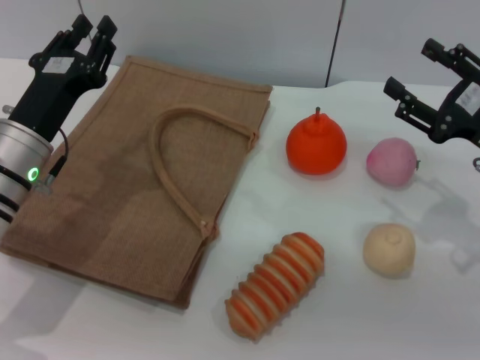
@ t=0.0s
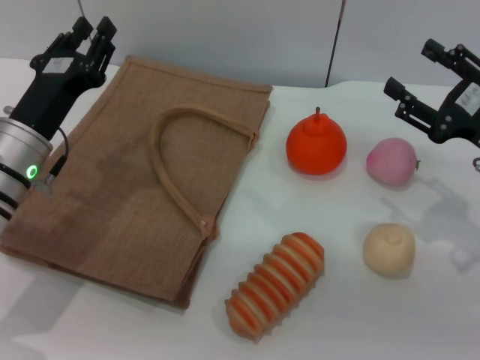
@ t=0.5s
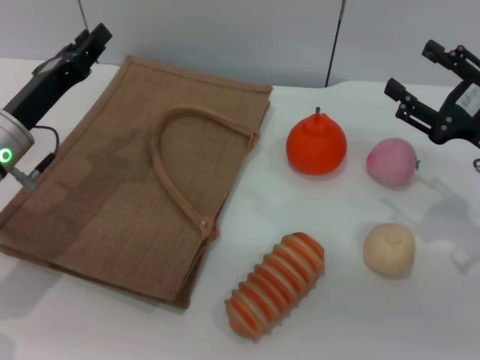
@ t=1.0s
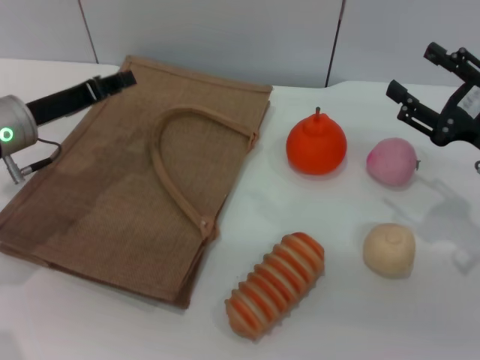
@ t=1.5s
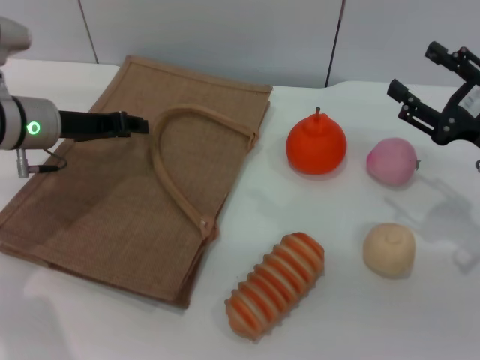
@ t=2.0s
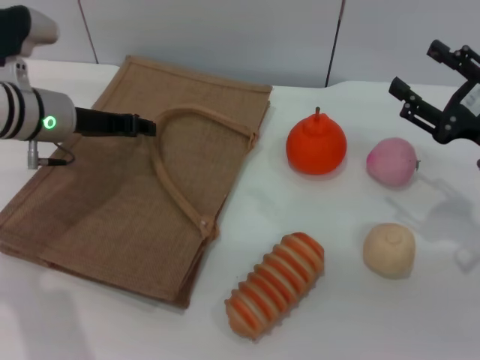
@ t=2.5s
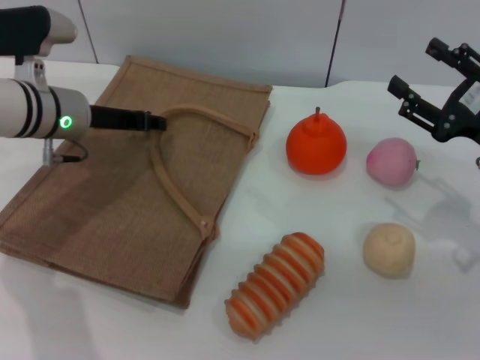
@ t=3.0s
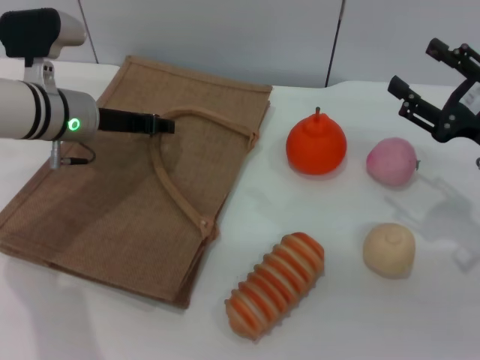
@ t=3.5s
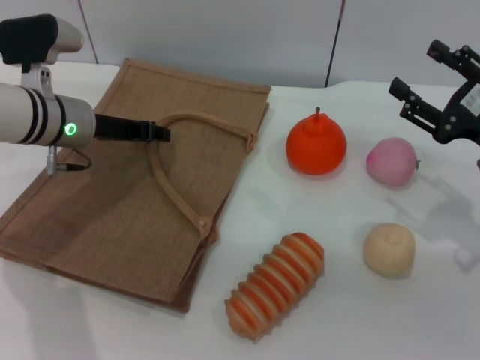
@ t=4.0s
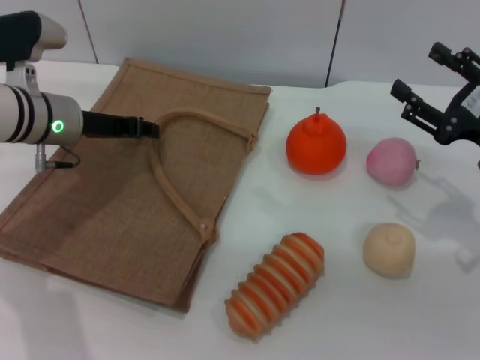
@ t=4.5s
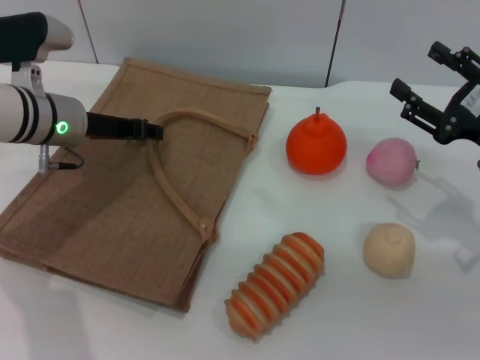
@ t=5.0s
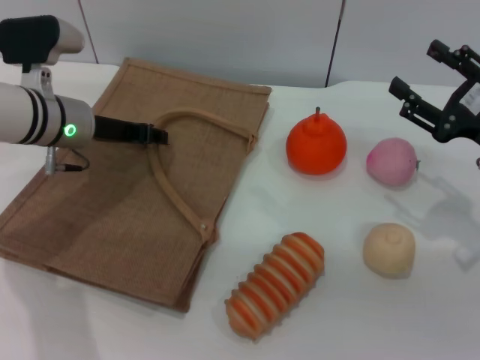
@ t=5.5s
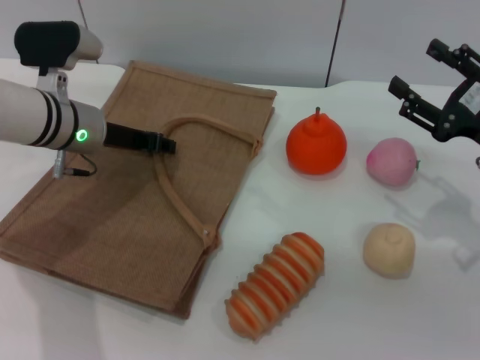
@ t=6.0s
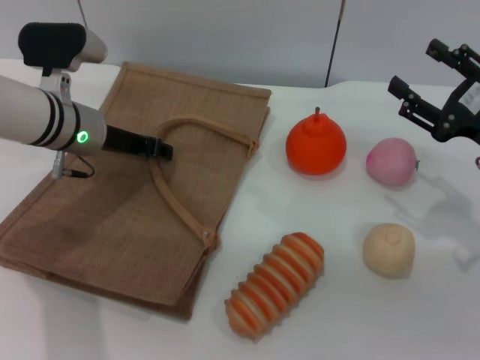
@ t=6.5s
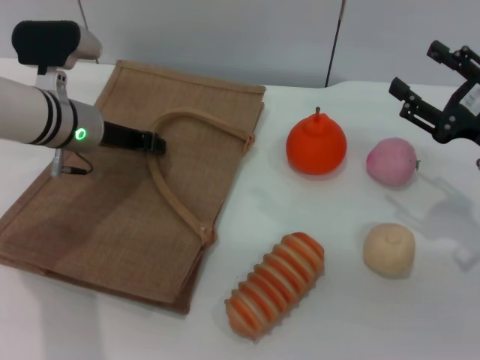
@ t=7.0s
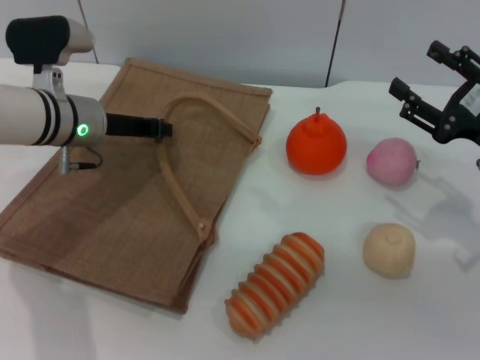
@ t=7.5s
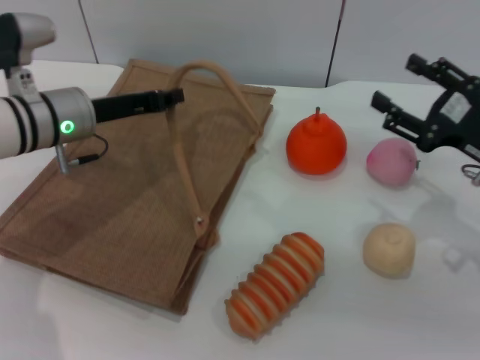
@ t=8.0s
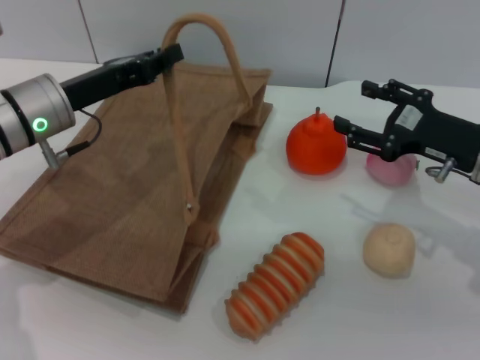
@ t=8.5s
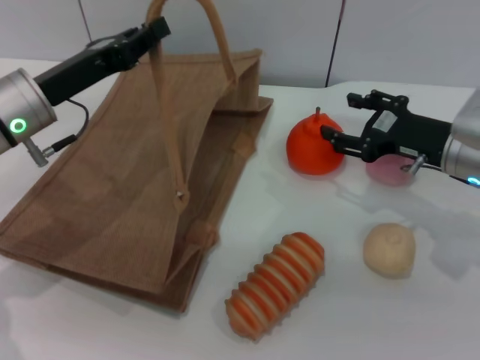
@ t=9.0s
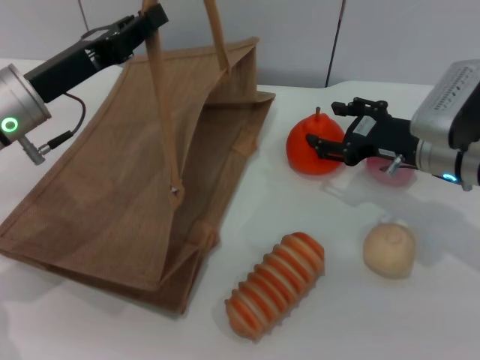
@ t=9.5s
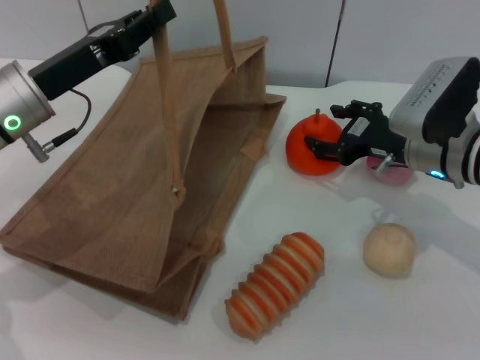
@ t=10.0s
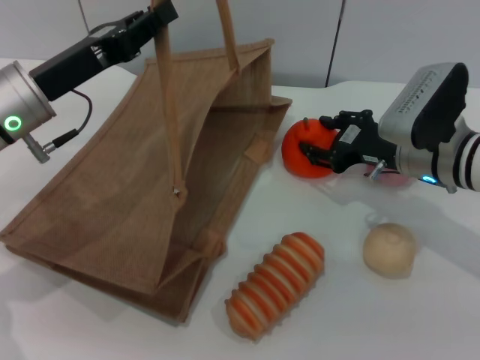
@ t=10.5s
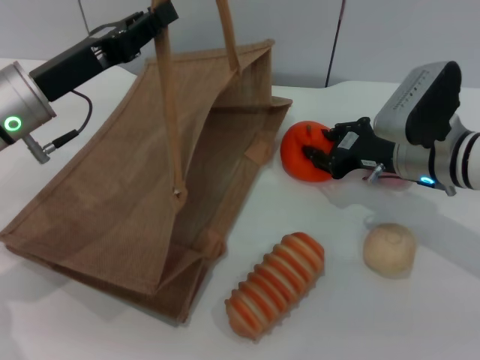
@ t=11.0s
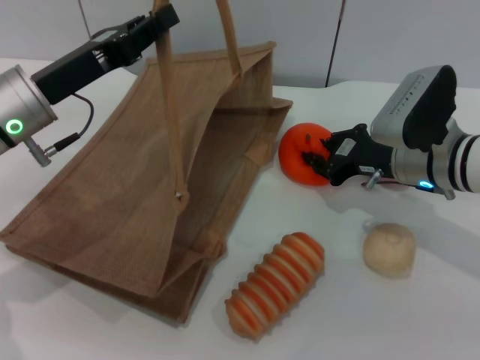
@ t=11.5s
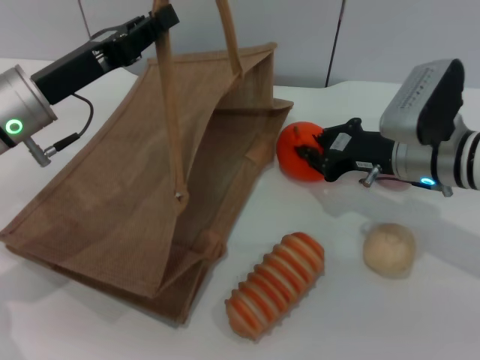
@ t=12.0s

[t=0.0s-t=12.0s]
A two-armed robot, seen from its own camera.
Task of the whole recording: pick up the orange and peach from the table and place it in the brown handbag.
Step, t=0.0s to t=7.5s: Lift the woven bag with the left gripper to open it.
t=0.0s to t=2.0s: The left gripper goes some 10 cm forward.
t=2.0s to t=6.0s: The grippers move only a little.
t=6.0s to t=8.0s: The left gripper closes.
t=8.0s to t=10.0s: The right gripper heads to the left and forward, covering about 10 cm. The left gripper moves some 5 cm.
t=10.0s to t=12.0s: The right gripper closes up.

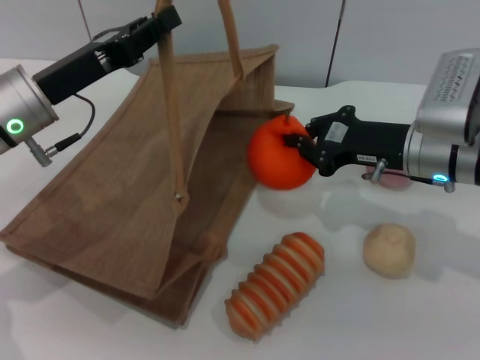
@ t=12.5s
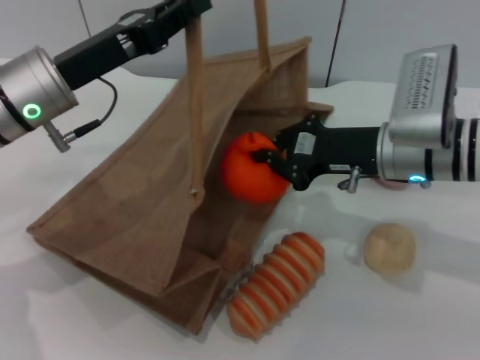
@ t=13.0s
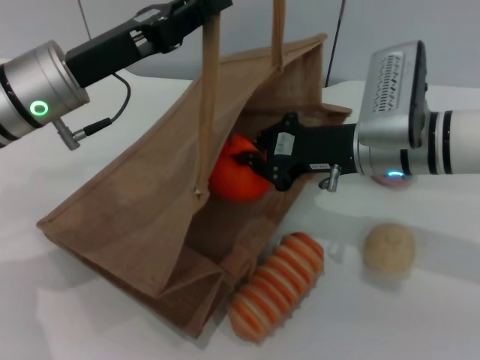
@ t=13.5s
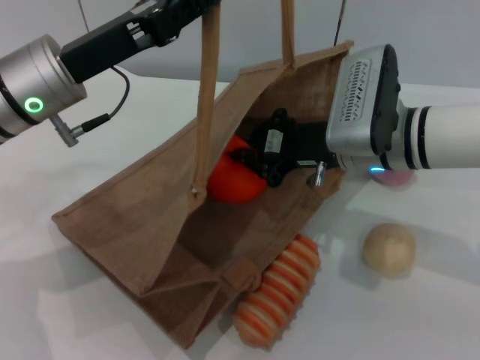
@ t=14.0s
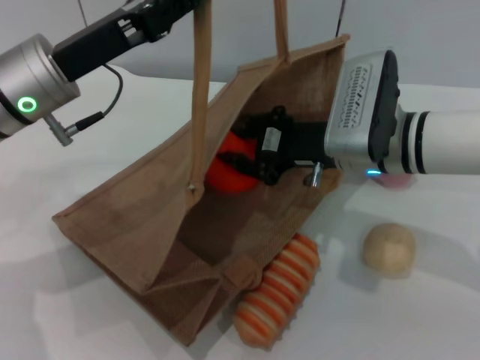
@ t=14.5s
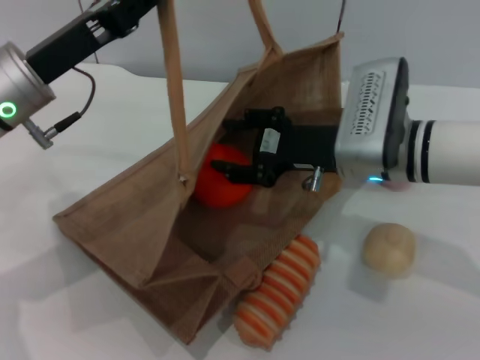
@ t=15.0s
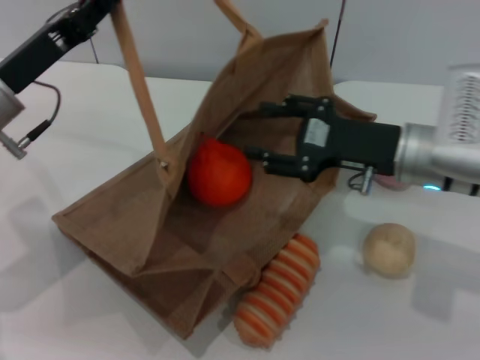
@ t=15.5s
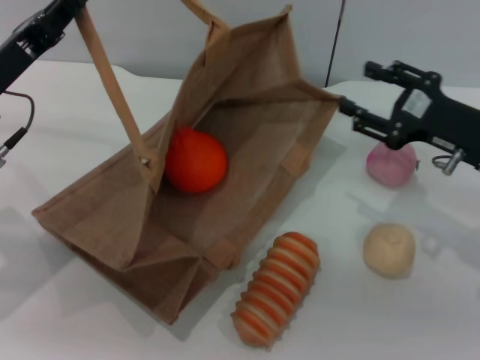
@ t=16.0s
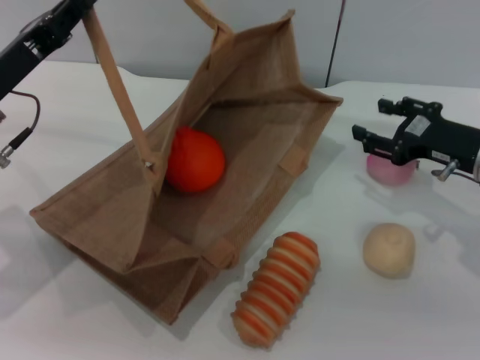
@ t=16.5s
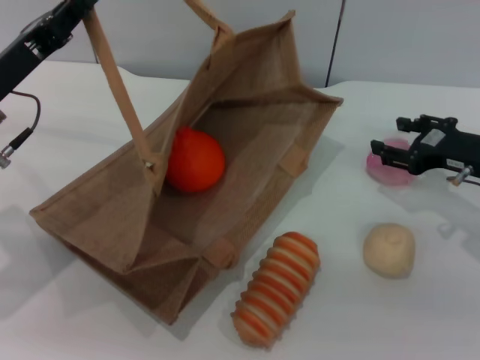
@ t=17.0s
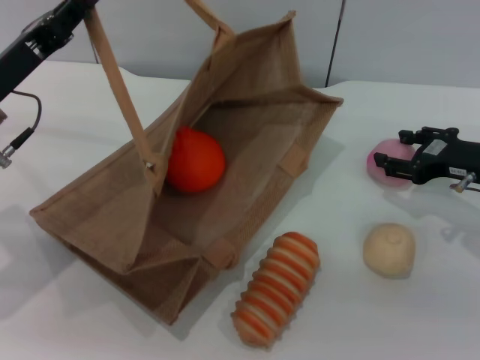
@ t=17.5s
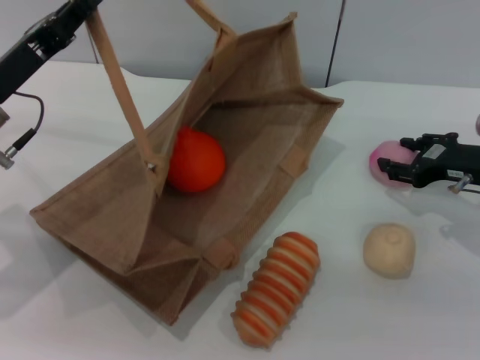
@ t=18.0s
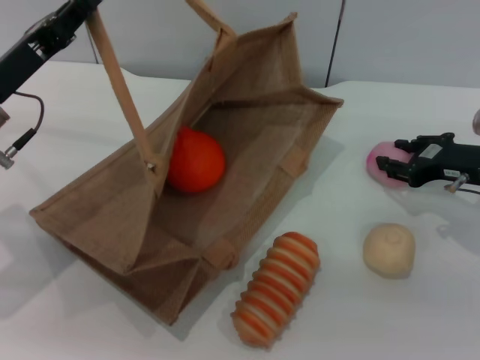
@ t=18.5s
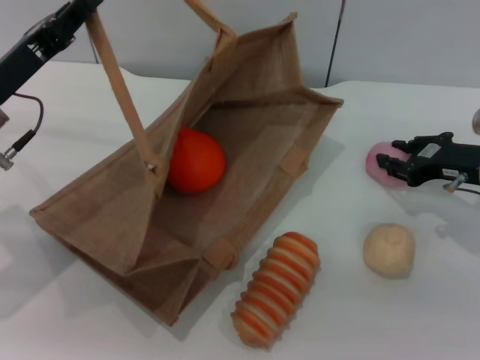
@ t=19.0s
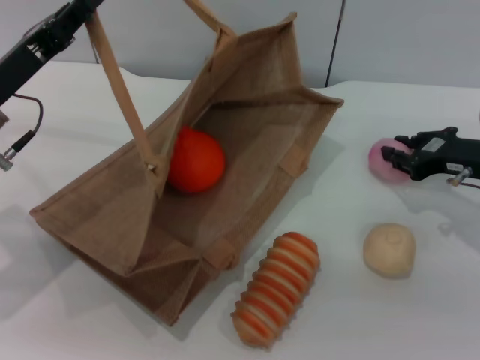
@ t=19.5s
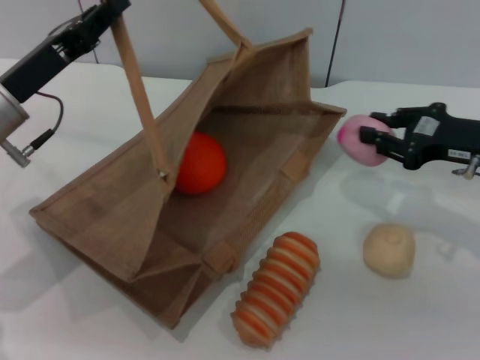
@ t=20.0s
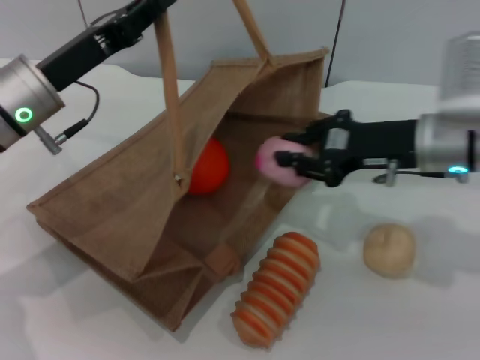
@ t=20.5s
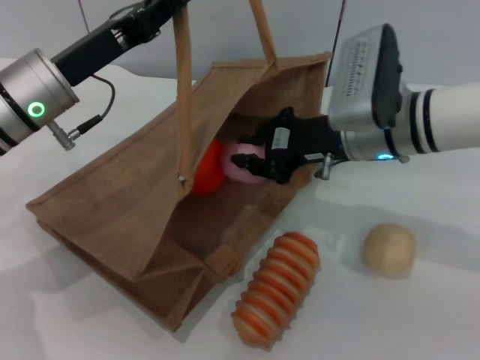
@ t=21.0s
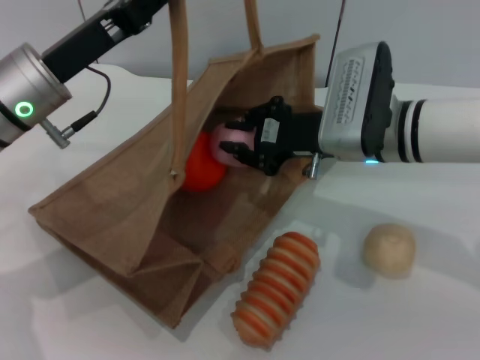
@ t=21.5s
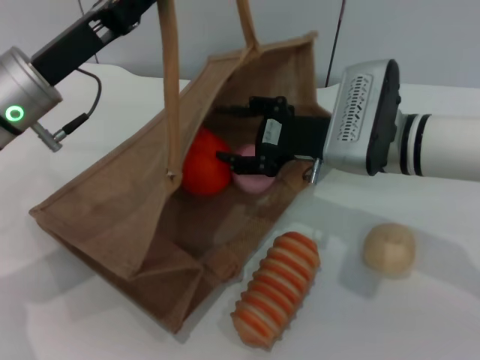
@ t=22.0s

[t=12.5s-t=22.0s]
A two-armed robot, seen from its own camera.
Task of the whole recording: pick up the orange and peach from the table and place it in the brown handbag.
Step, t=13.0s to t=15.5s: Place the orange into the woven bag with the right gripper.
Step, t=16.0s to t=20.0s: Pick up the peach with the right gripper.
t=12.5s to t=14.5s: The right gripper heads to the left, covering approximately 5 cm.
t=14.5s to t=16.5s: The left gripper moves to the left, some 5 cm, while the right gripper moves to the right, roughly 15 cm, and opens its fingers.
t=16.5s to t=18.0s: The grippers stay close to where they were, moving slightly.
t=18.0s to t=20.0s: The right gripper closes.
t=20.0s to t=22.0s: The right gripper moves to the left, roughly 15 cm, and opens up.

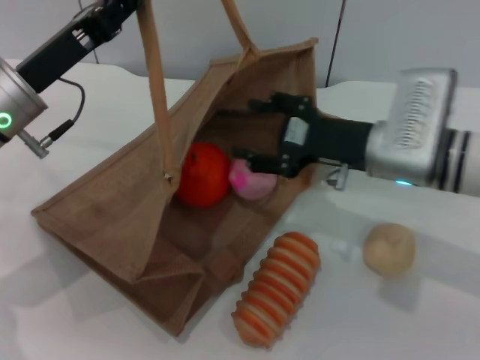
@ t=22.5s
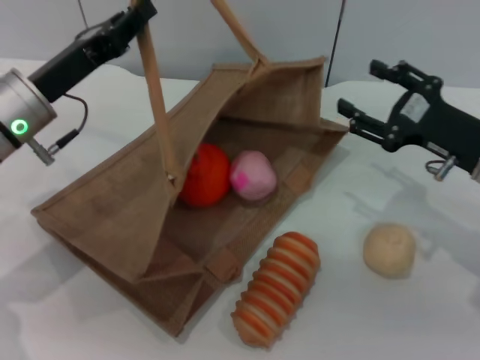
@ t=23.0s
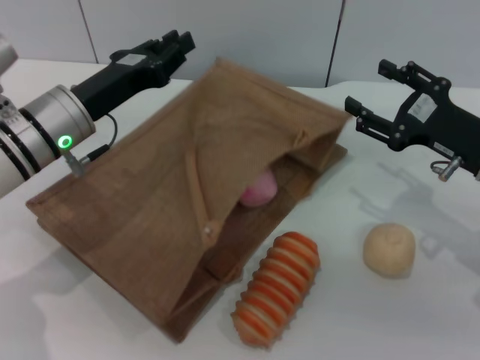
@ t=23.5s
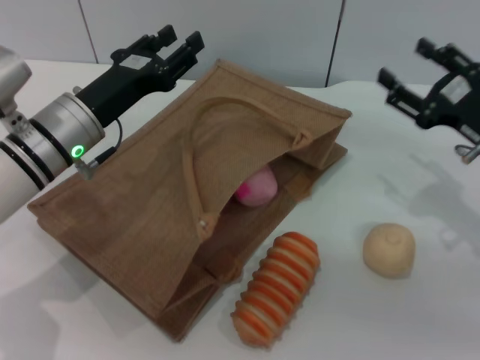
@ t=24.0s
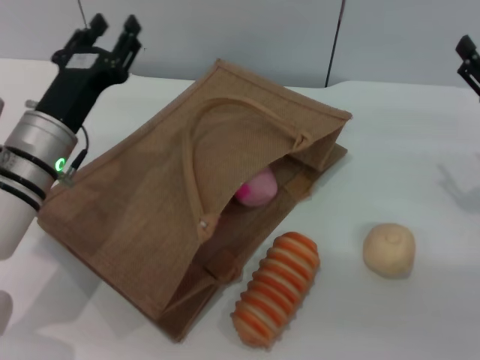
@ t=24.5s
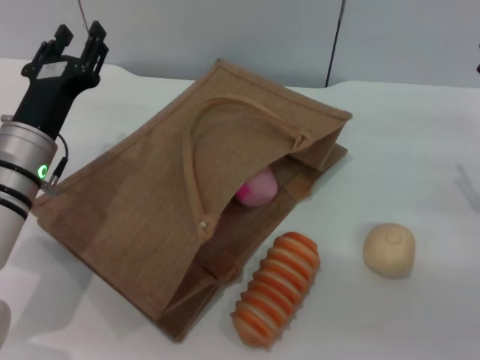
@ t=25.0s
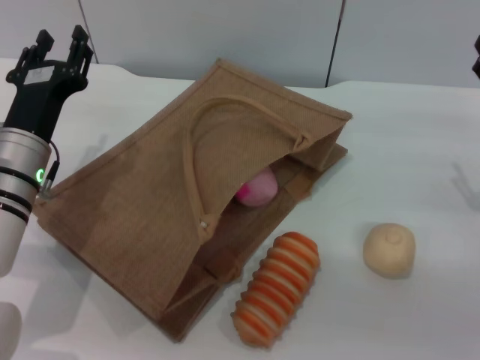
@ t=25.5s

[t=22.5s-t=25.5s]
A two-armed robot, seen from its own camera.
Task of the whole recording: pick up the orange and peach from the table and place it in the brown handbag.
Step, t=23.5s to t=24.0s: Lower the woven bag with the left gripper to close it.
t=22.5s to t=24.0s: The right gripper heads to the right, covering roughly 10 cm. The left gripper changes place by some 5 cm, and opens its fingers.
t=24.0s to t=25.5s: The left gripper moves approximately 5 cm.
